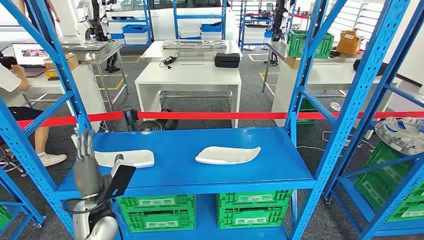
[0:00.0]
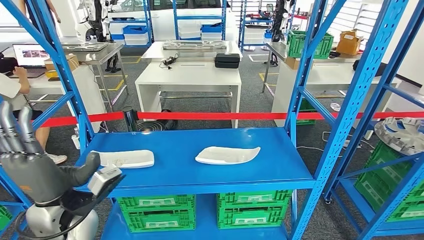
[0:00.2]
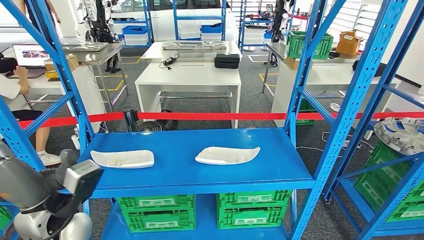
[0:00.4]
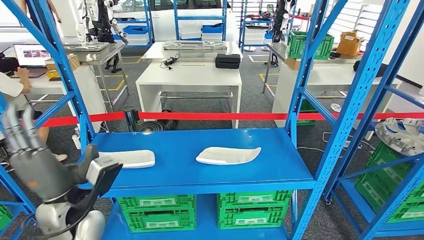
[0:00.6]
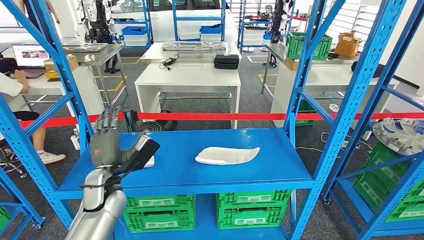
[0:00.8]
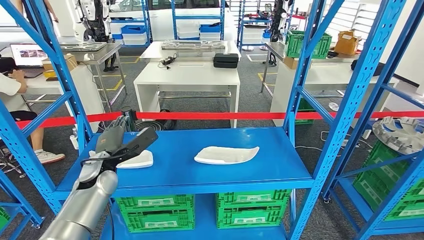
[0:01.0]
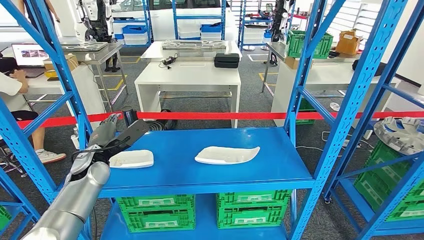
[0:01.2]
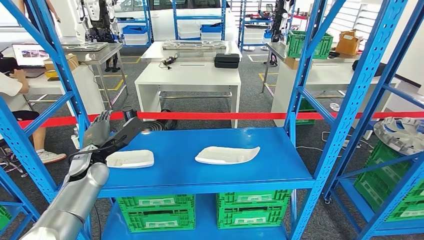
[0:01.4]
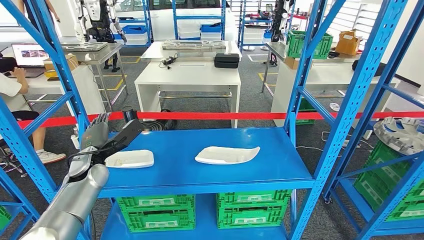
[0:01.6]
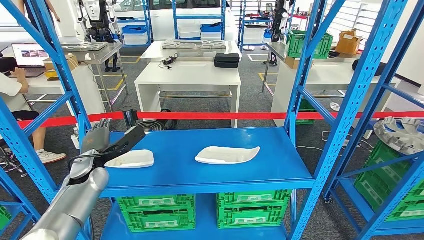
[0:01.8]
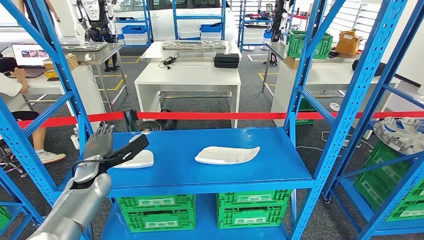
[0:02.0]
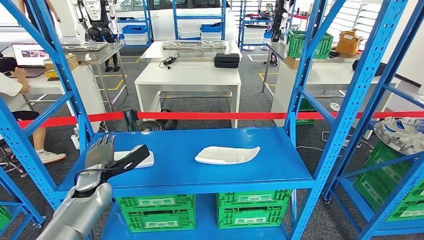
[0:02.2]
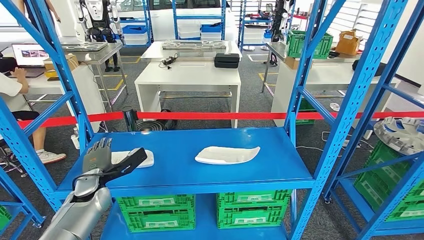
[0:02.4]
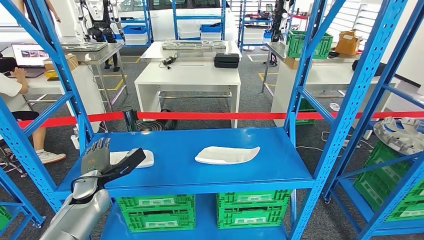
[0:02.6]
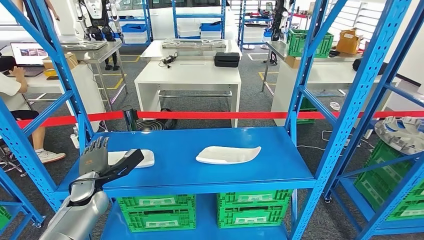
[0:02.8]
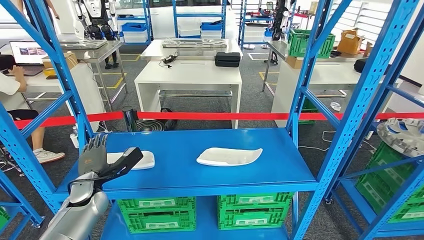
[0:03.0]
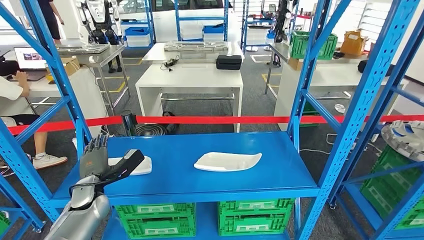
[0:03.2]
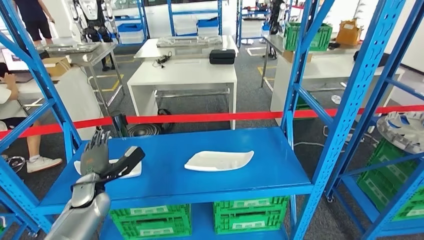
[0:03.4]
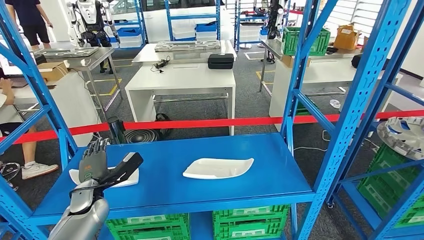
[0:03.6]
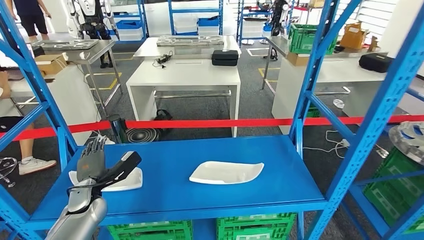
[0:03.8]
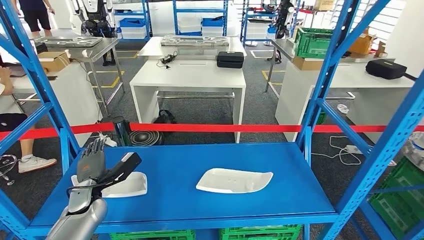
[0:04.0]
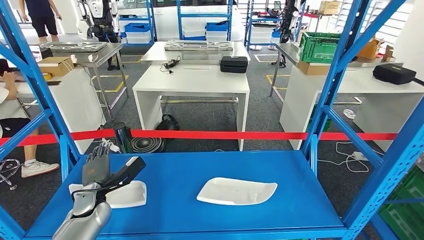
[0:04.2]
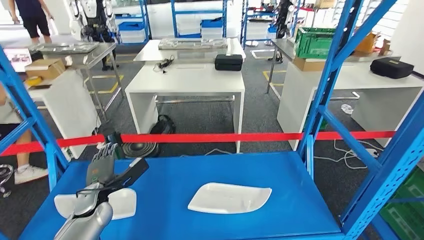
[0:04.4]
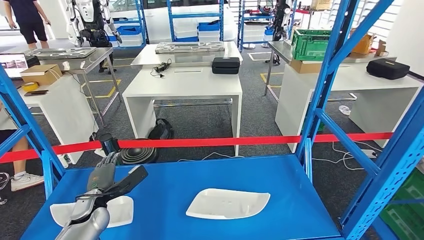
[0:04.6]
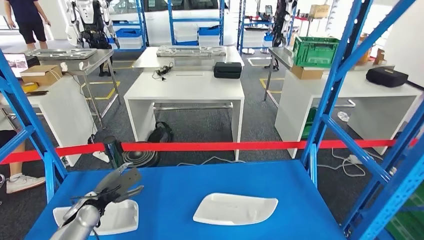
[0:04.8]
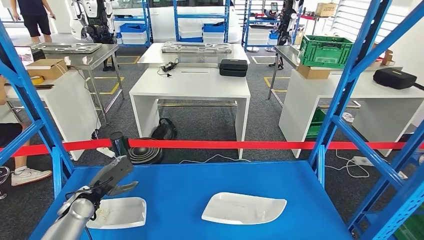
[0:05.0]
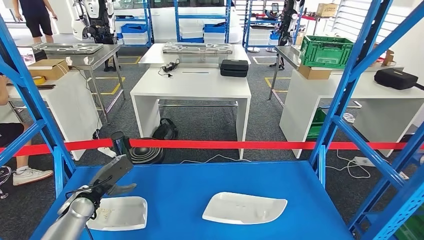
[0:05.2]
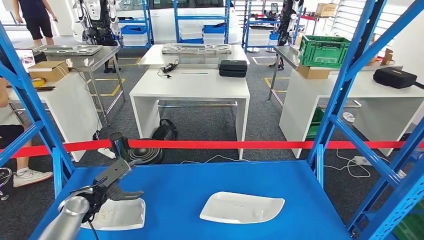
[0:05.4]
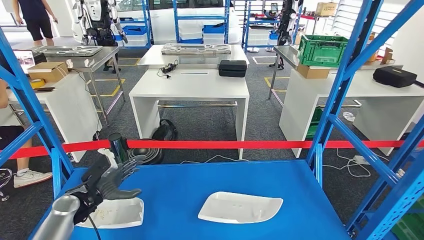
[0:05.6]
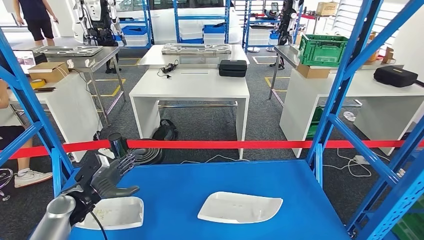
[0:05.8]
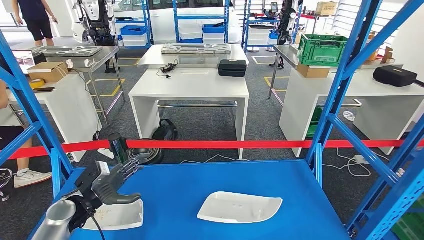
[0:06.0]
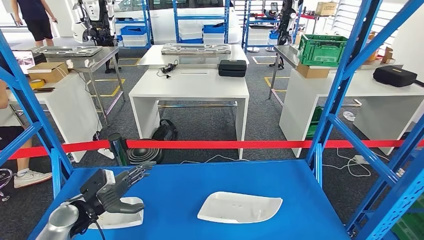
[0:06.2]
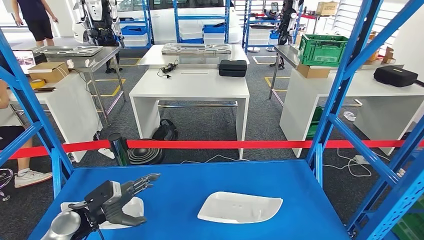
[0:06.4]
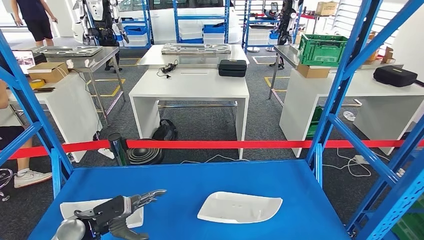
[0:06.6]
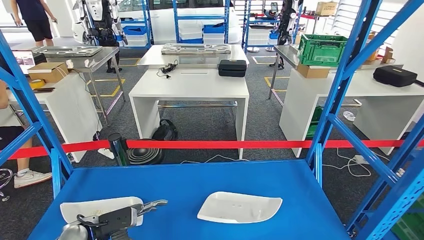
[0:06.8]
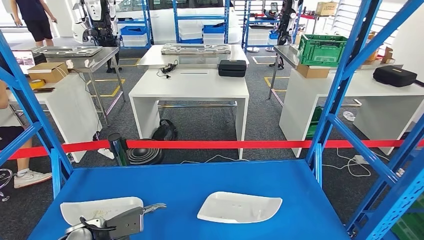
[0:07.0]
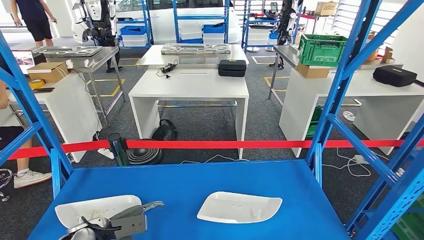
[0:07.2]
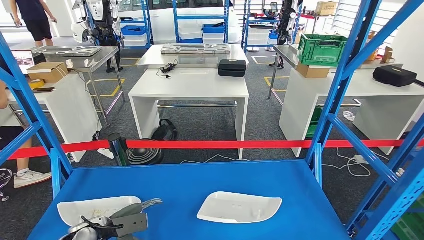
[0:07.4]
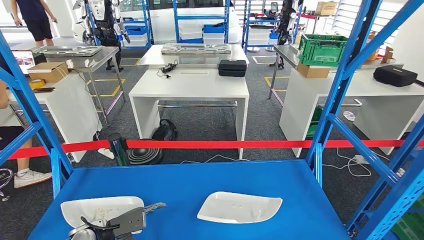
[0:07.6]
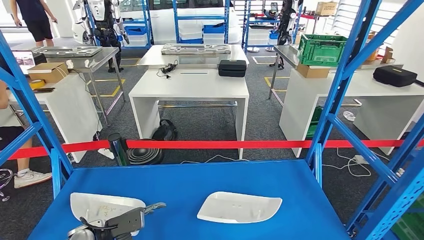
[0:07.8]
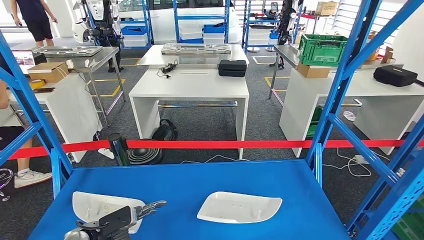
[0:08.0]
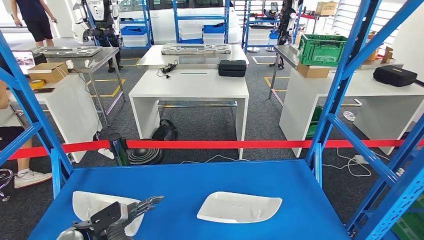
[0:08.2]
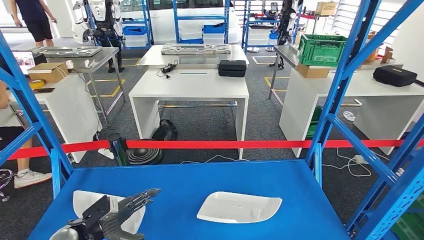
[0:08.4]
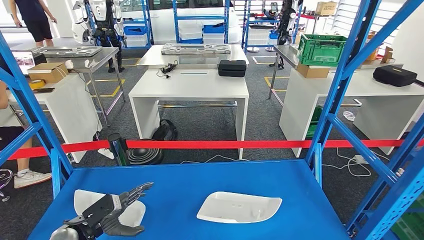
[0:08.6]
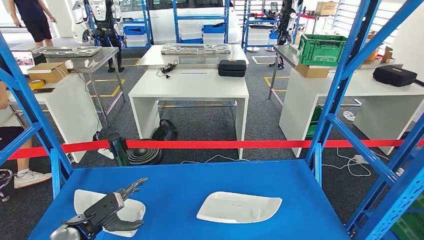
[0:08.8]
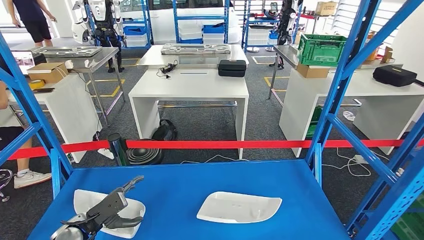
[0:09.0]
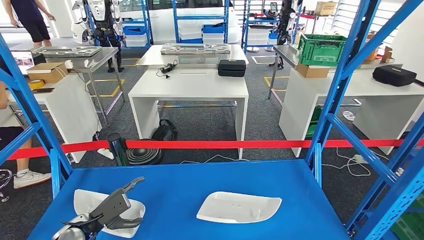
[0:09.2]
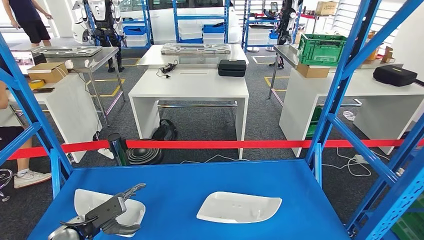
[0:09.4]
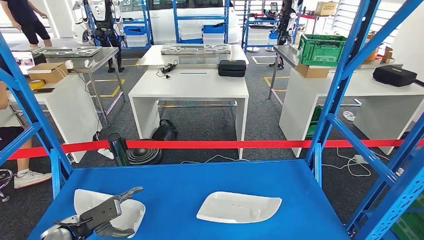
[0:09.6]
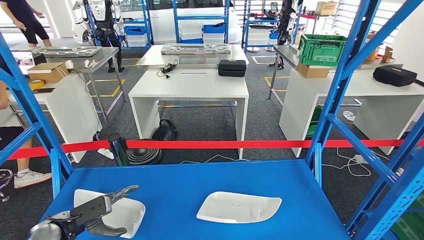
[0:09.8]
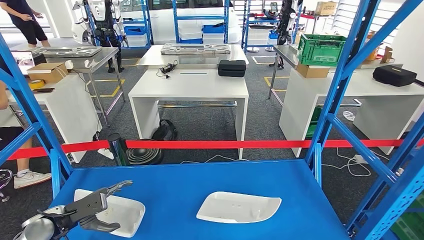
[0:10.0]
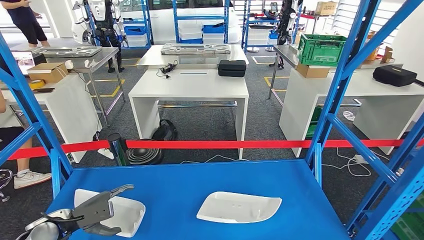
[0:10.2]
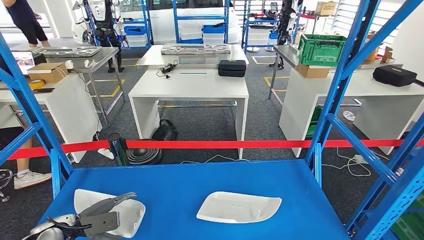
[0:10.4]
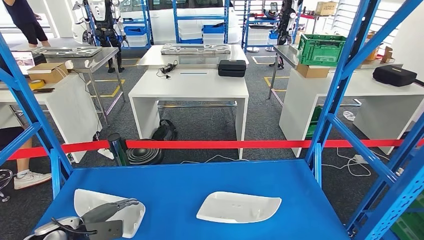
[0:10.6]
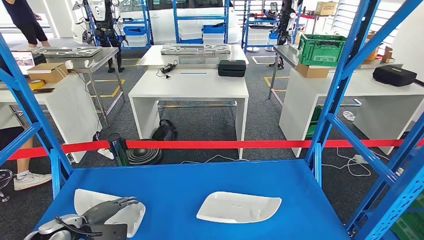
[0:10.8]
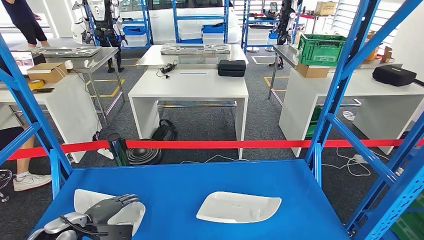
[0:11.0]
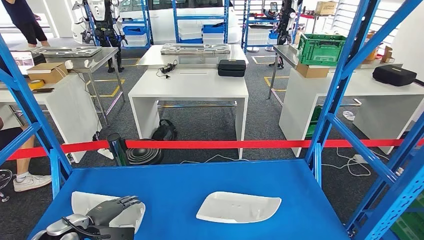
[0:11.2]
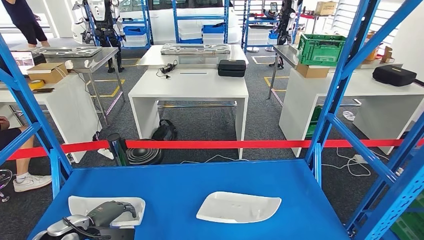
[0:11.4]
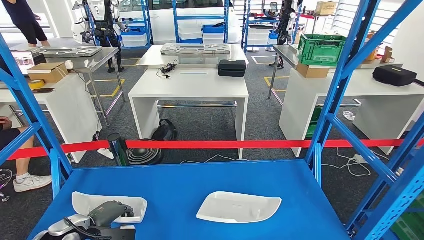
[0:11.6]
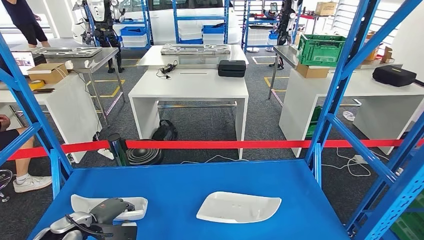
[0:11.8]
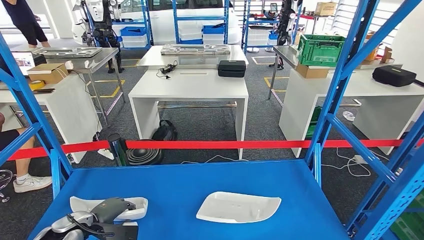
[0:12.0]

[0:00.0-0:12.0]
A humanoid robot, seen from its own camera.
0:06.0 to 0:07.6: The left hand heads downward, covering roughly 5 cm.
0:09.0 to 0:10.4: The left hand moves to the left, roughly 10 cm.

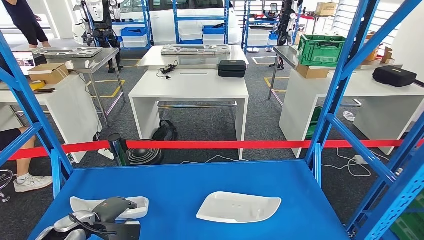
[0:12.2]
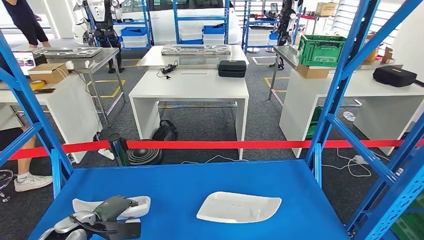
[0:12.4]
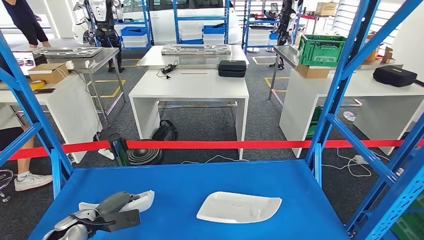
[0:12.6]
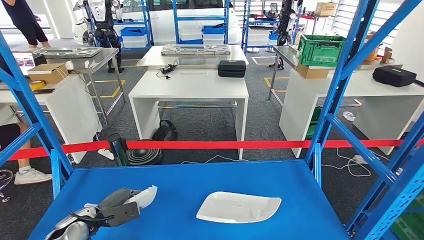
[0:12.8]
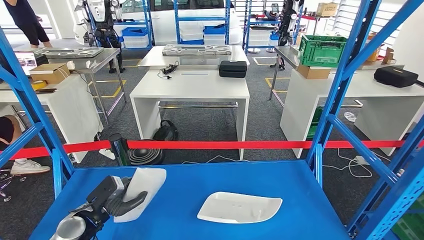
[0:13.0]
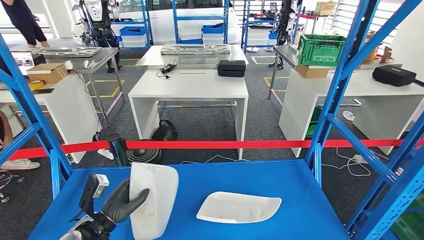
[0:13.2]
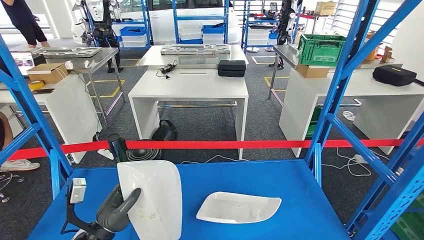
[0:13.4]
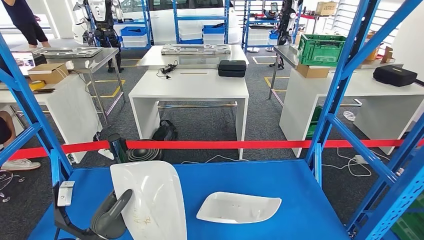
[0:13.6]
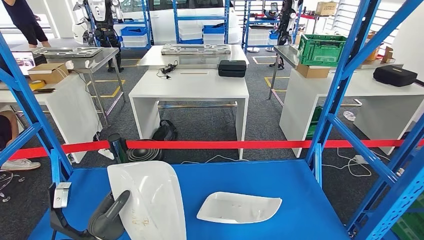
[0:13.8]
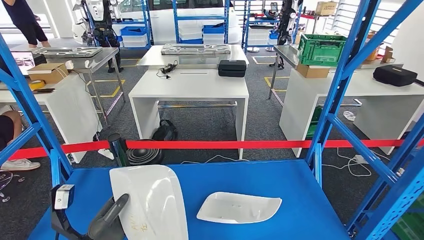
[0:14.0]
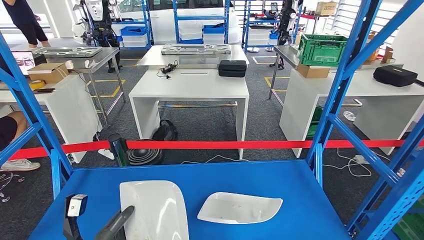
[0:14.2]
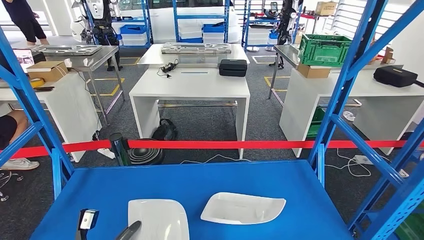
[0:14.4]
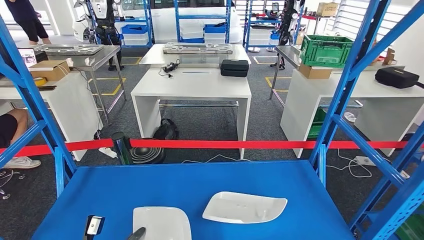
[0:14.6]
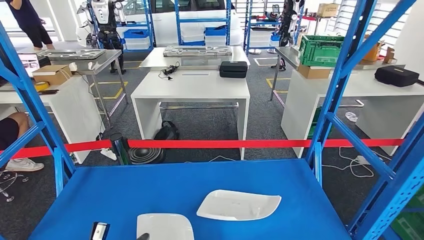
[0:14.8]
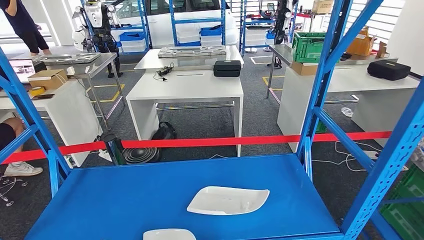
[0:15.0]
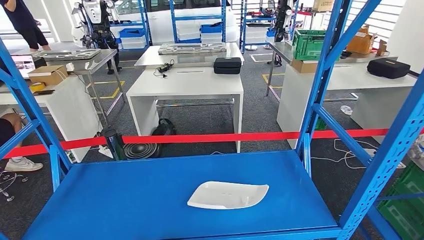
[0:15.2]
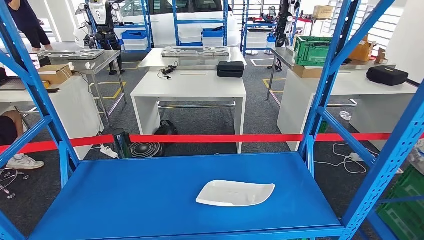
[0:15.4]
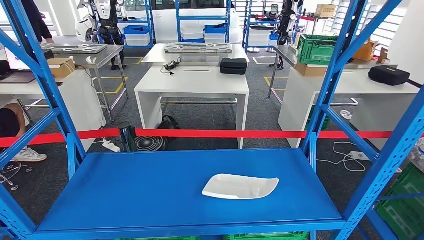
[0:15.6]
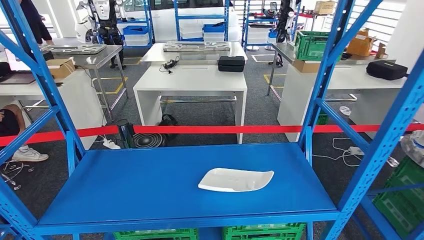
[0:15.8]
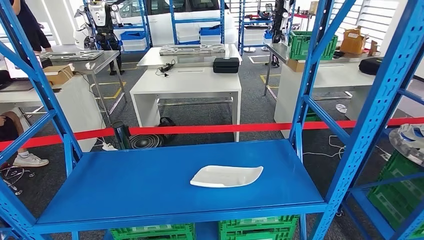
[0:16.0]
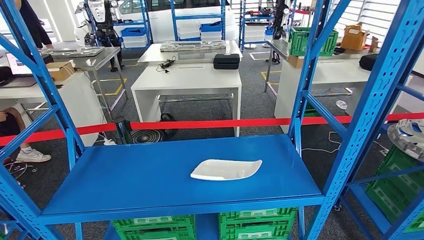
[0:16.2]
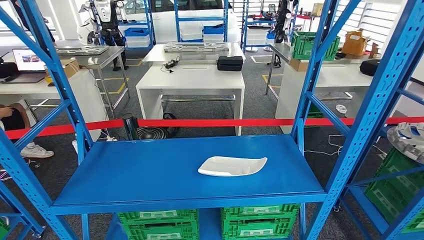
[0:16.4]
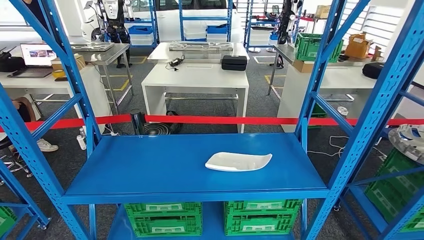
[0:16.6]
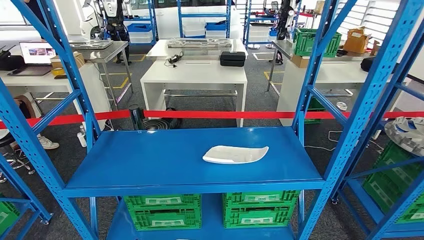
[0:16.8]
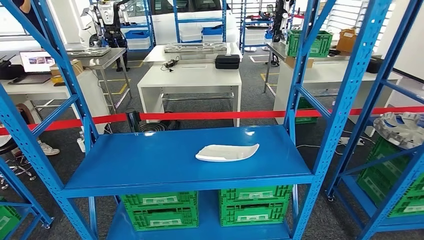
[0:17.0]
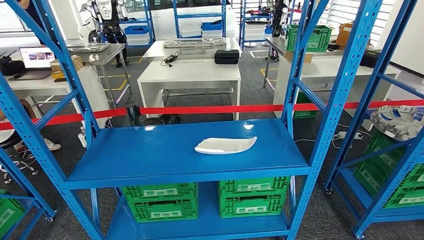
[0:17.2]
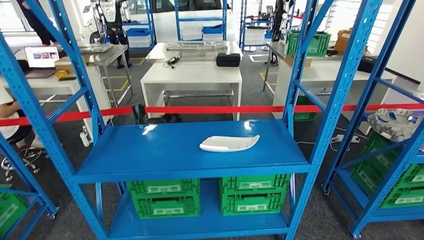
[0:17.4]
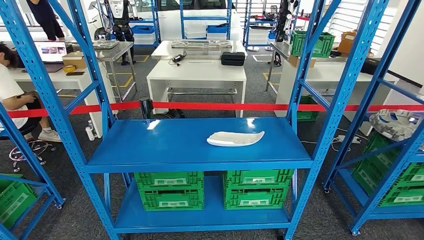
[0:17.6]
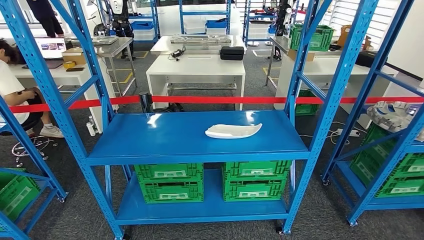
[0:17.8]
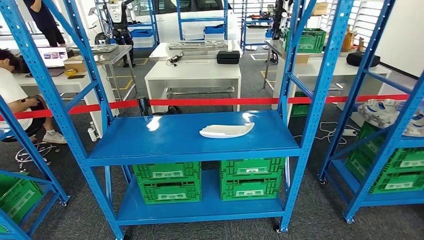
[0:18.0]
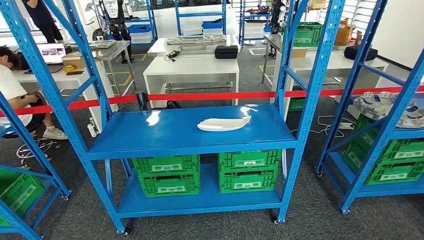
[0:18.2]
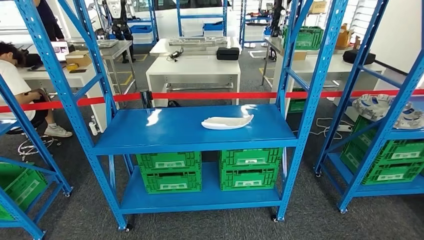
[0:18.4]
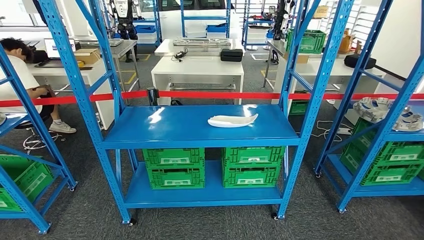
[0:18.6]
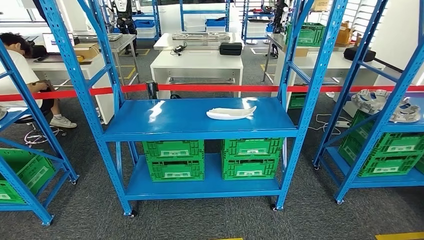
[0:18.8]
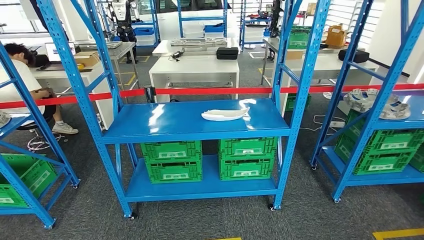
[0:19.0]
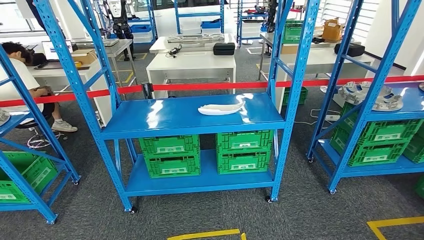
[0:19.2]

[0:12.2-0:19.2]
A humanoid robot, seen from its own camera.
Step, 0:12.2 to 0:15.4: Pick up the small parts from the shelf.
0:12.2 to 0:13.6: The left hand shifts some 20 cm to the right and backward.
